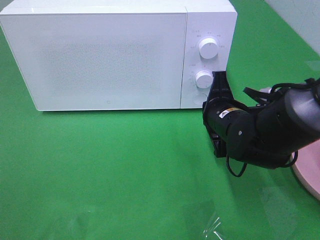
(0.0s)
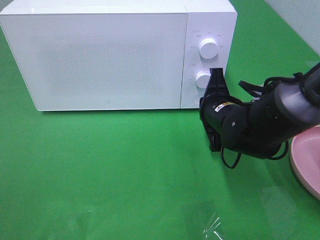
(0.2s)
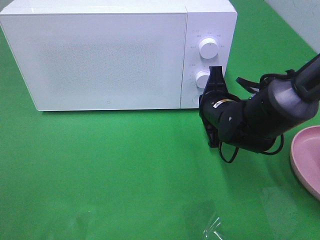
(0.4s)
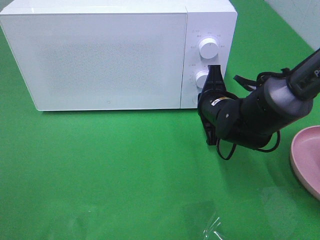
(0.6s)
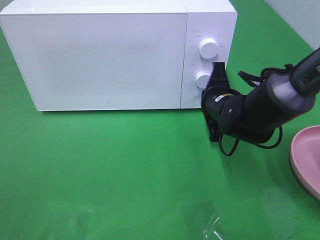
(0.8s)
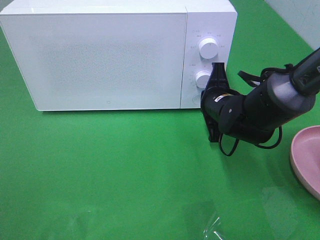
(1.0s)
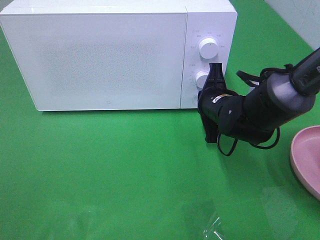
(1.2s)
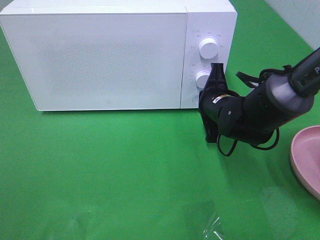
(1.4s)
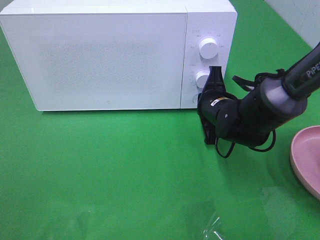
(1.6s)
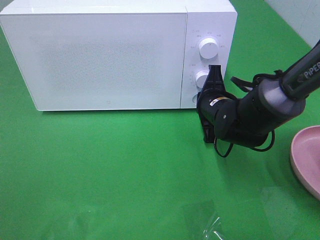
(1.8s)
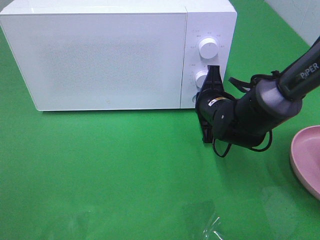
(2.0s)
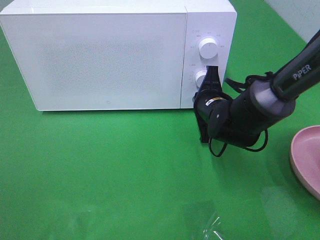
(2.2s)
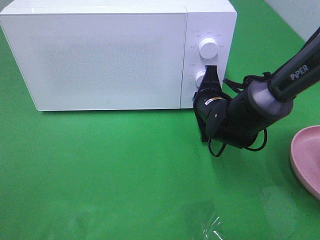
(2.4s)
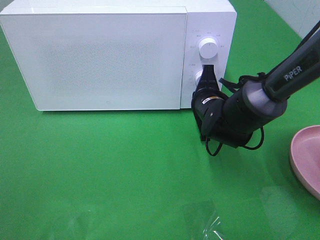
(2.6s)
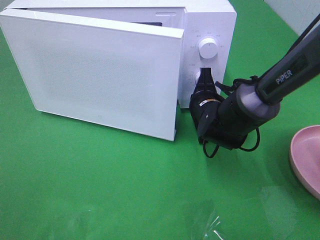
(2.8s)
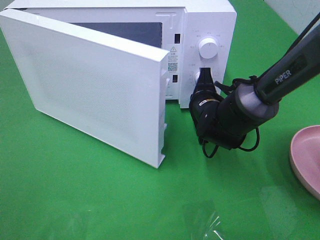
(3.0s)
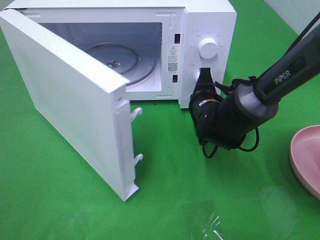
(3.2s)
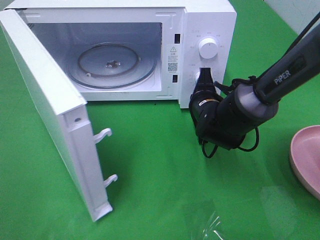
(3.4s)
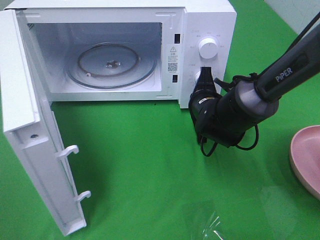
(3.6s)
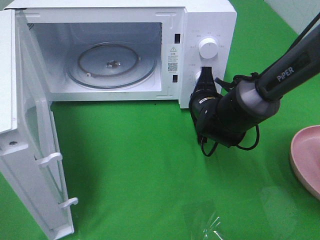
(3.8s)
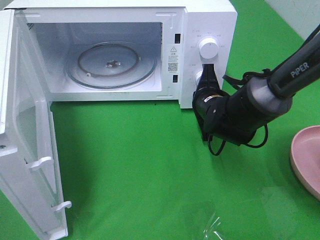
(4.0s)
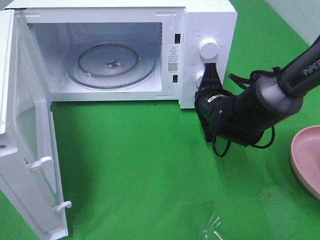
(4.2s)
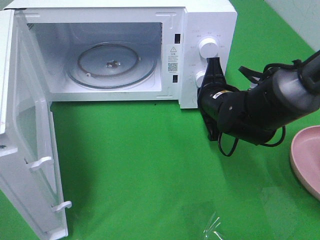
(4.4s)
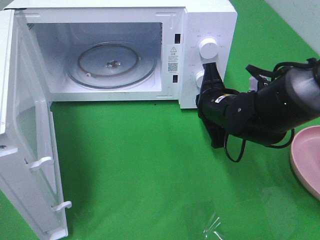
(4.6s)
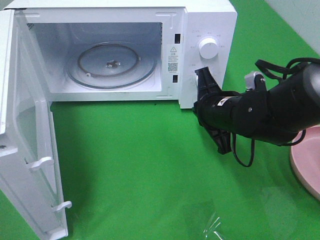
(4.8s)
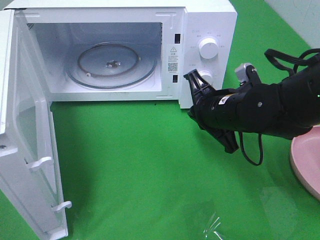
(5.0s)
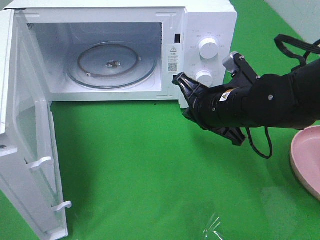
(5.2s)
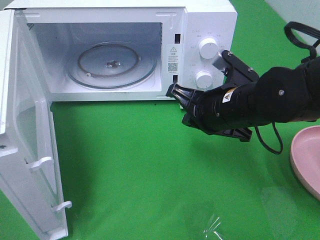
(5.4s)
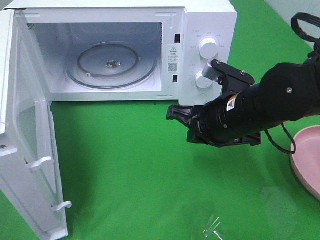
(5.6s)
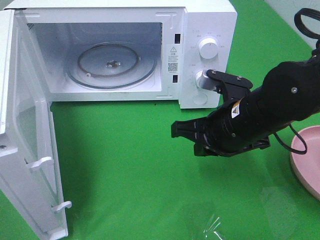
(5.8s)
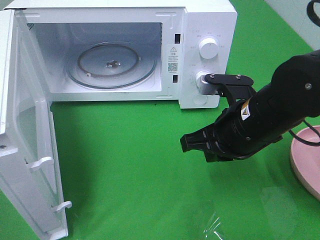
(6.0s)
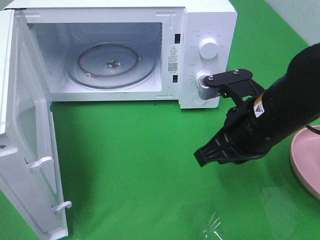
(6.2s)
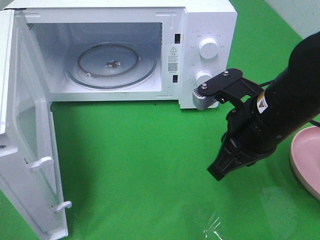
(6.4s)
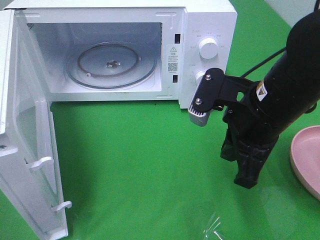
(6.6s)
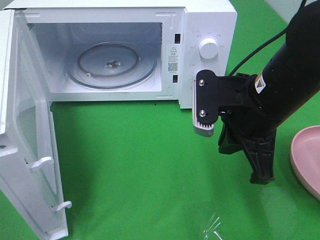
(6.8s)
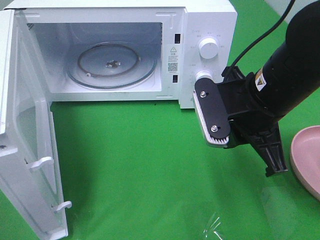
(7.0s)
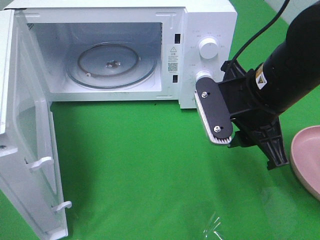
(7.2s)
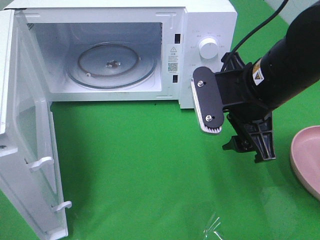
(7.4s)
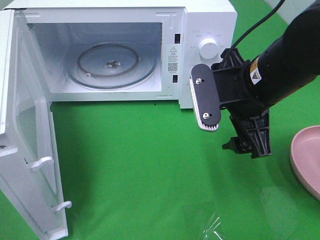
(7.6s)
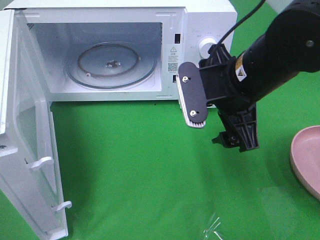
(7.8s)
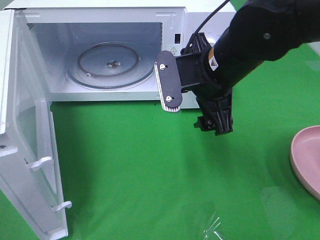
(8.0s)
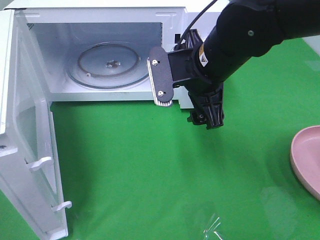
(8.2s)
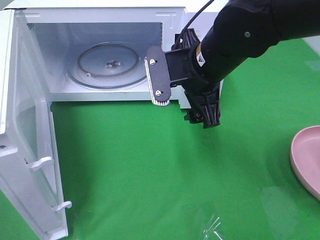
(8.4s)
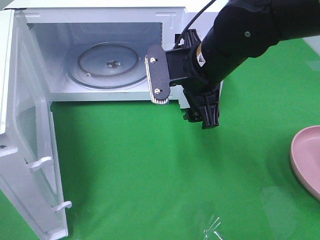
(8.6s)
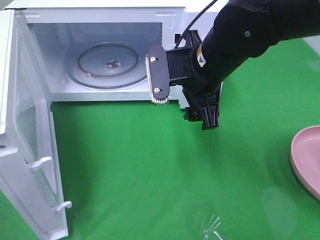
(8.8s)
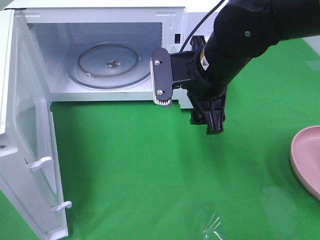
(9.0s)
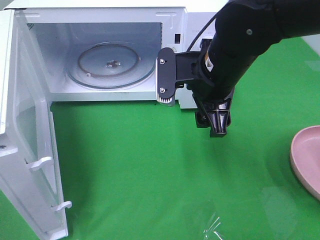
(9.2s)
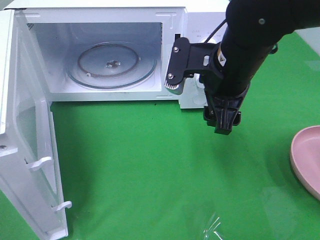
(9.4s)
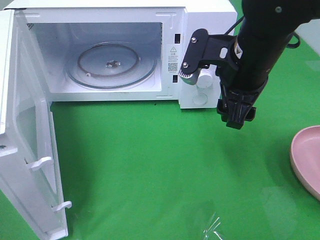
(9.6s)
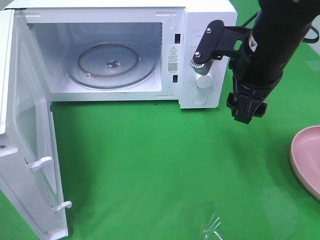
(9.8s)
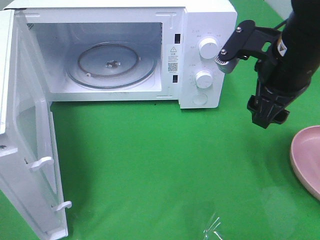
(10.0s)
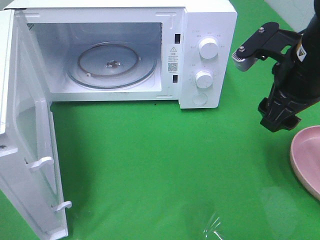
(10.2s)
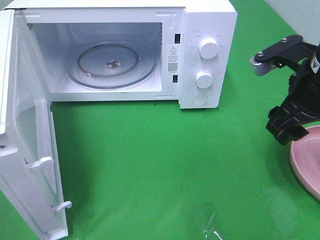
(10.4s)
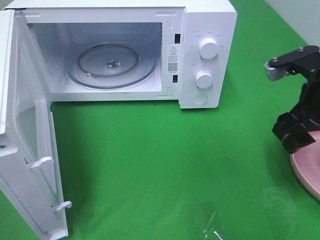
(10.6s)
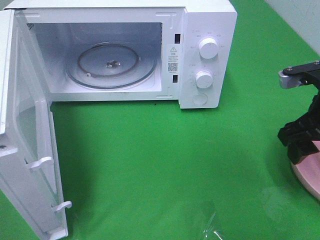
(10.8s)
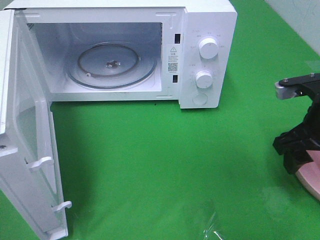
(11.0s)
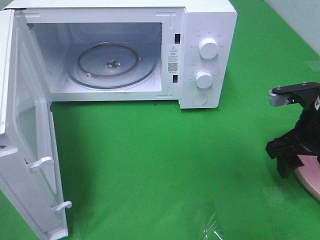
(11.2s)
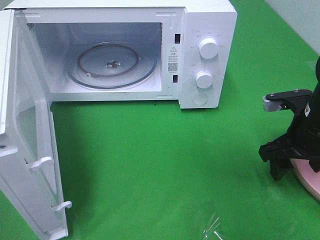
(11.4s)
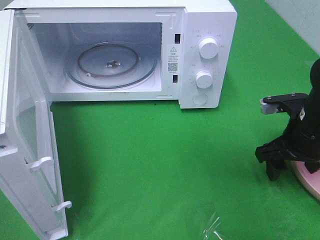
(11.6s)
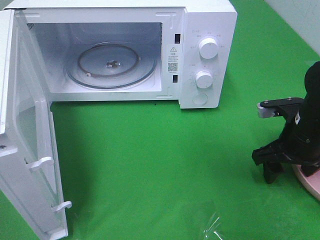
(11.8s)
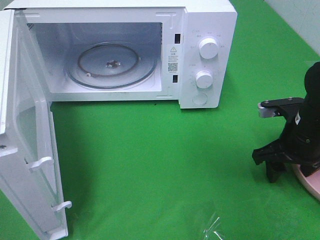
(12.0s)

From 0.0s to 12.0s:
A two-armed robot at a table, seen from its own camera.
Task of the whole recording: Heat the burger.
Step, from 0.0s to 4.8s: Right hand: press the switch.
From 0.0s to 1.6s: The right gripper ends up about 5 cm from where it was.
From 4.4s to 6.0s: The right gripper moves backward and upward, some 10 cm.
From 6.0s to 7.6s: The right gripper moves upward, some 5 cm, and opens up.
From 7.6s to 9.0s: The right gripper moves some 5 cm.
From 9.0s to 10.4s: The right gripper goes some 15 cm to the right.
From 10.4s to 12.0s: The right gripper moves downward, roughly 10 cm.

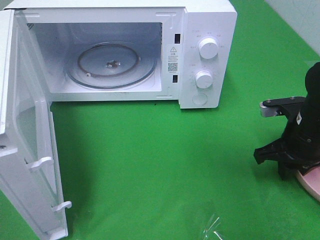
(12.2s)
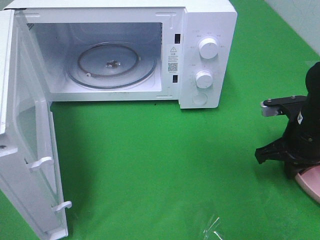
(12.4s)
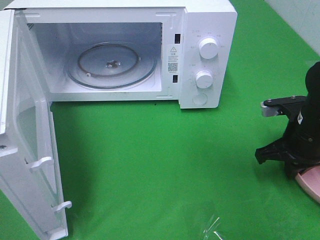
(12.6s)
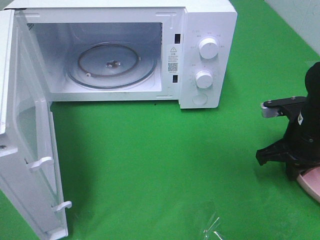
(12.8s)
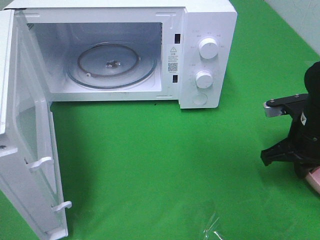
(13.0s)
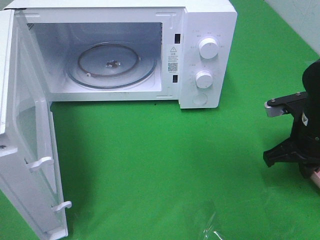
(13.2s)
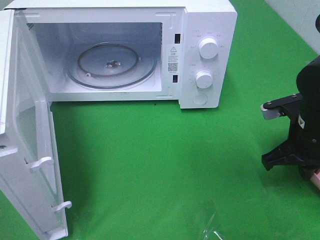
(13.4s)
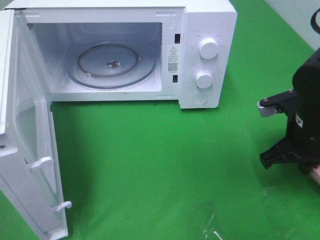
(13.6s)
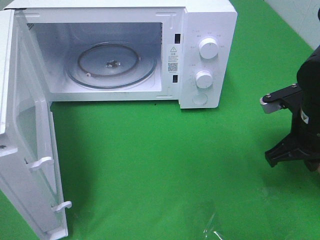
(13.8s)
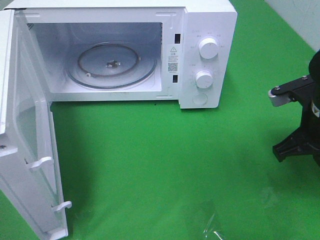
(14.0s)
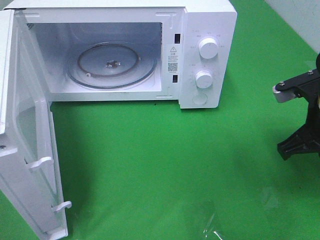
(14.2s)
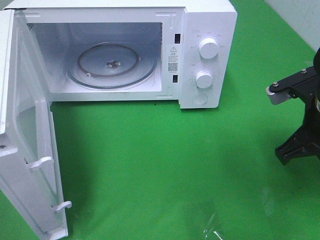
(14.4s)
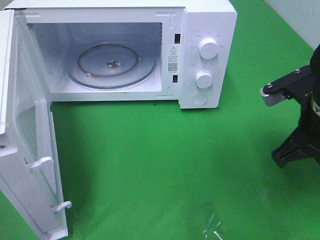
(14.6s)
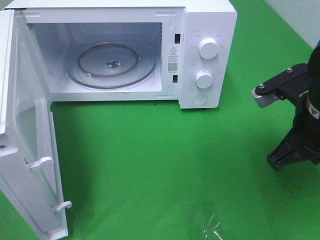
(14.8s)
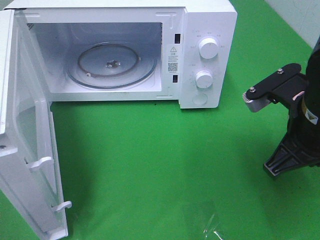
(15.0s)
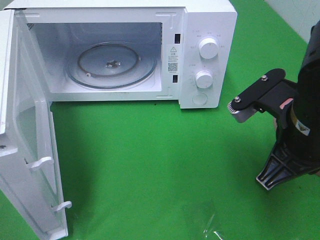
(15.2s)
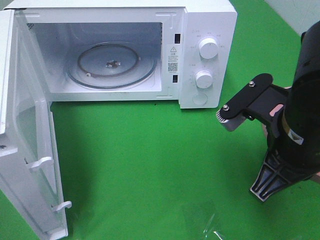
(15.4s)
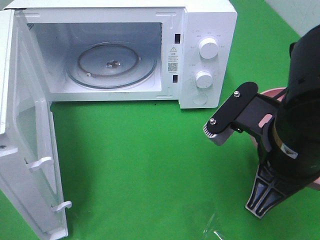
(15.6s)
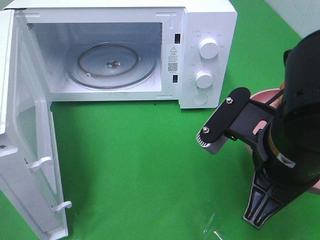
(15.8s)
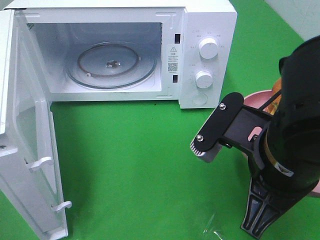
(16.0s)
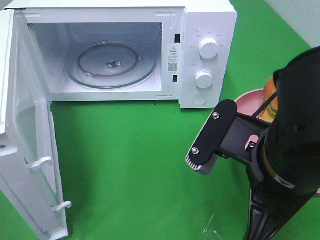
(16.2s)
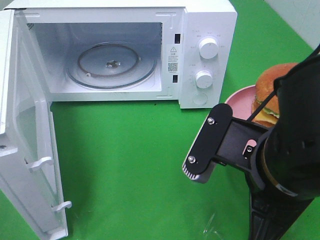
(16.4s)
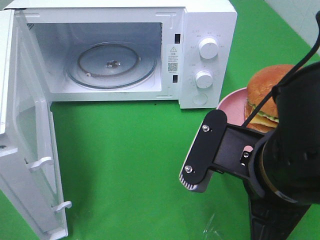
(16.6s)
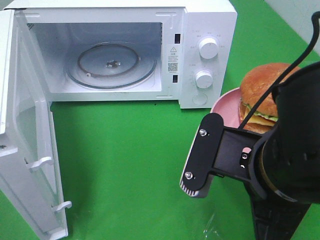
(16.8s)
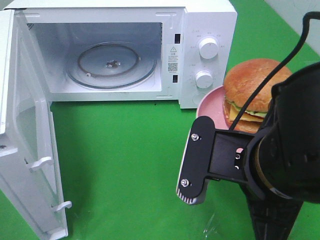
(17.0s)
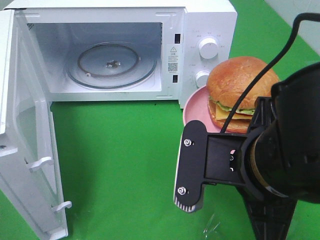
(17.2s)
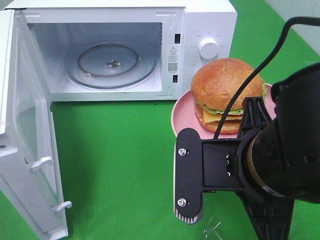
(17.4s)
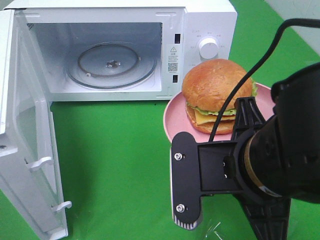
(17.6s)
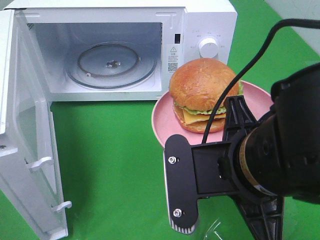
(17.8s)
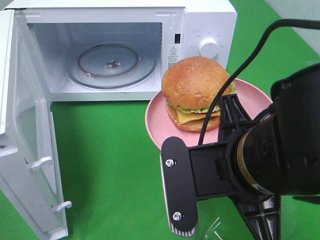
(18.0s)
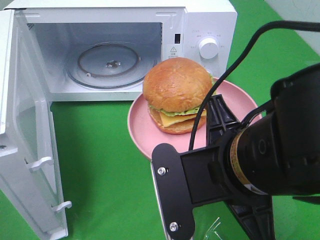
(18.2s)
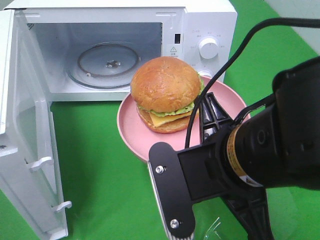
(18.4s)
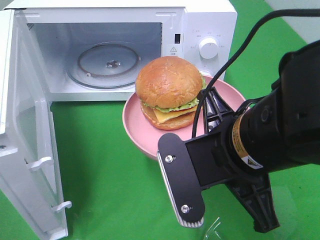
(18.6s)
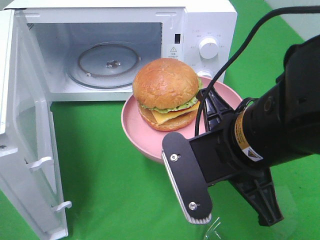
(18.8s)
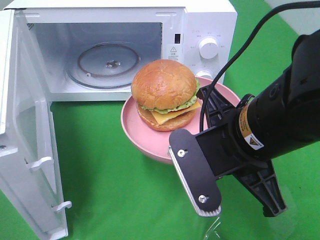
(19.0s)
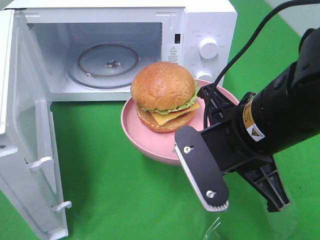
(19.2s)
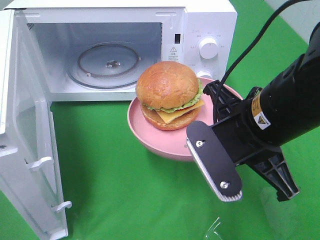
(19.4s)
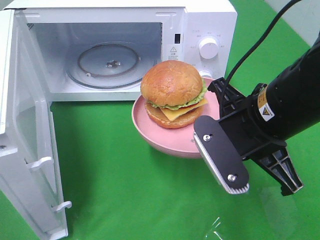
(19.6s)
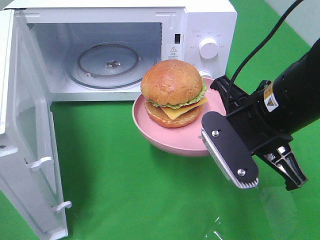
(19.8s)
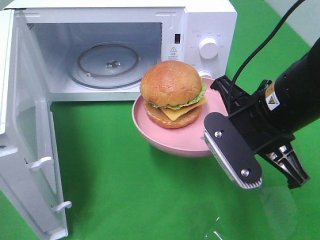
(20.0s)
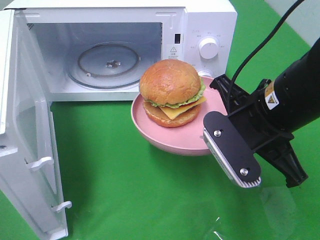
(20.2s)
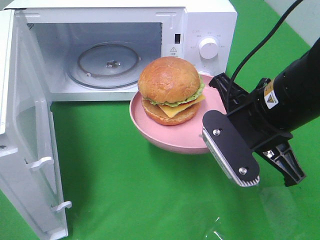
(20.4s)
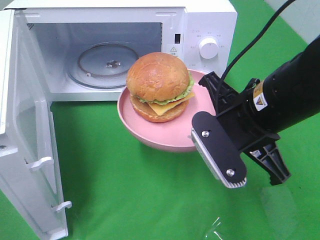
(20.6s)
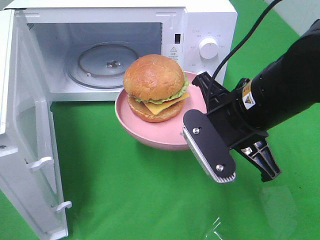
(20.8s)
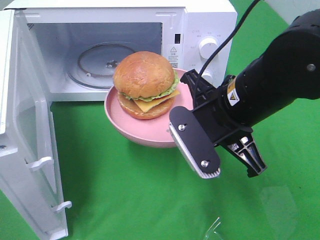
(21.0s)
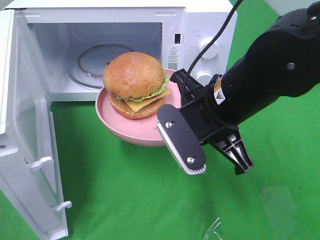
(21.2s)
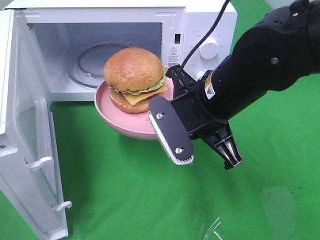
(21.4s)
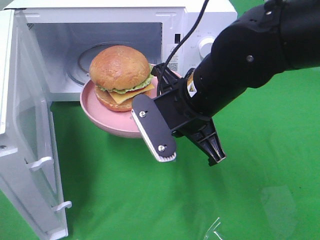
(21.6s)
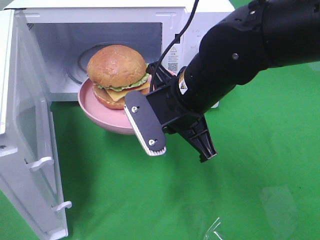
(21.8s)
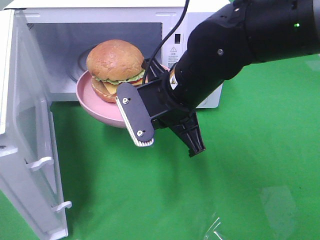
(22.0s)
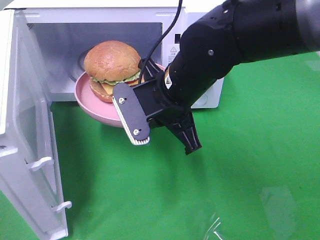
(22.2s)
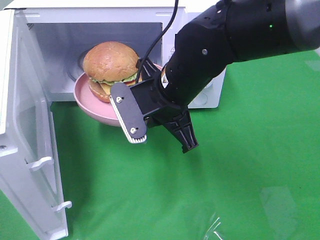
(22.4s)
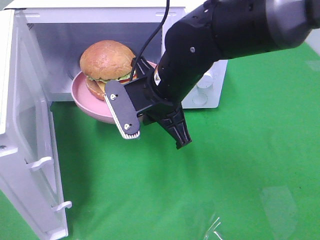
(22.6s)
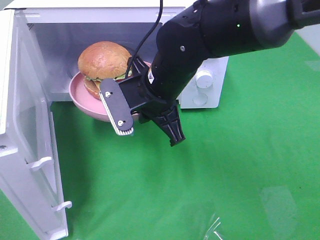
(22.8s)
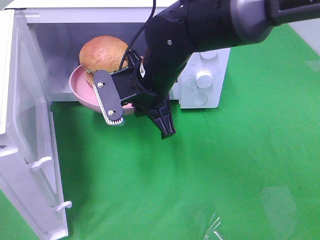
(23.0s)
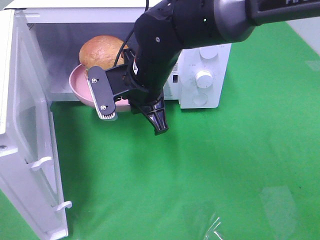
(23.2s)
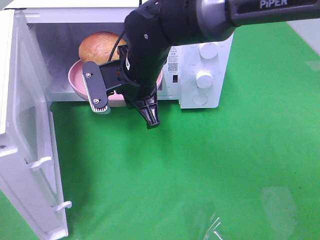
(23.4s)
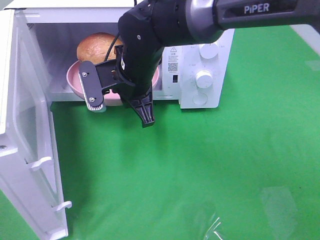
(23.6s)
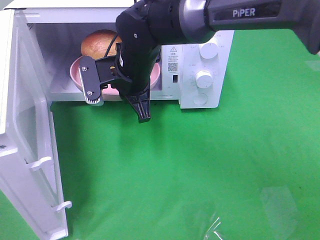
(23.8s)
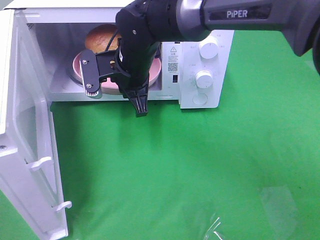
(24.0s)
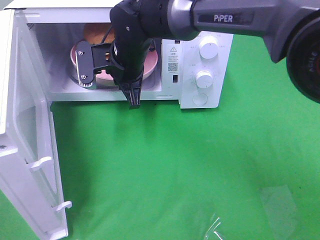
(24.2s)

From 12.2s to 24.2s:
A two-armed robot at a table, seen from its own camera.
Task of the whole recording: Heat the burger.
From 12.2s to 13.8s: The right gripper closes up.
From 13.8s to 15.2s: The right gripper shifts approximately 10 cm to the left, backward and upward.
From 15.2s to 16.6s: The right gripper moves backward and to the left, approximately 10 cm.
From 18.2s to 19.8s: The right gripper travels forward and to the right by approximately 10 cm.
From 19.8s to 21.2s: The right gripper travels to the left by roughly 5 cm.
From 21.2s to 22.6s: The right gripper shifts approximately 10 cm to the left and forward.
From 22.6s to 24.2s: The right gripper shifts some 10 cm forward and to the left.
